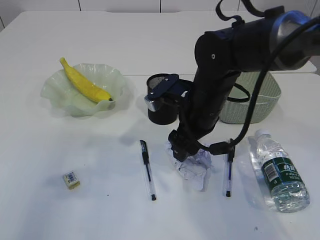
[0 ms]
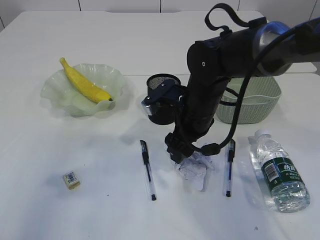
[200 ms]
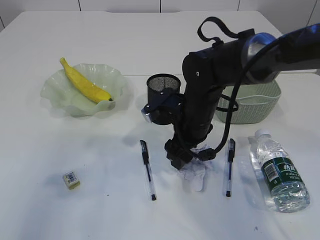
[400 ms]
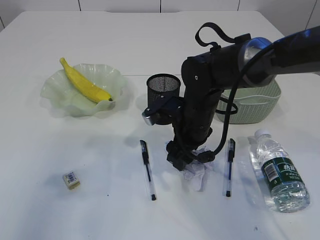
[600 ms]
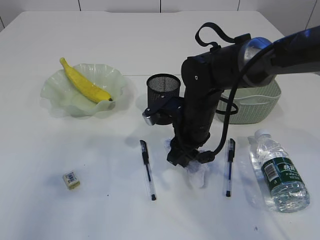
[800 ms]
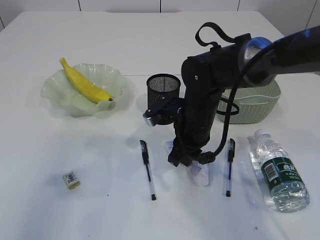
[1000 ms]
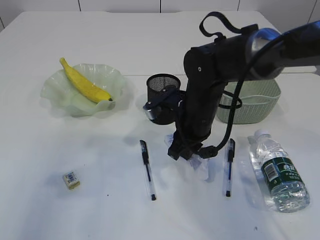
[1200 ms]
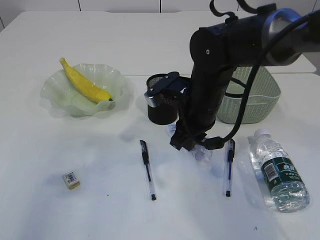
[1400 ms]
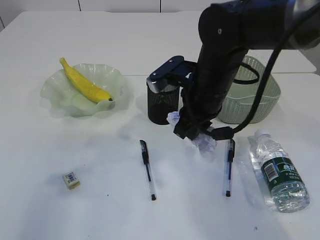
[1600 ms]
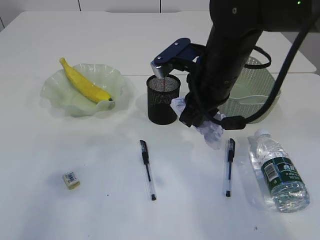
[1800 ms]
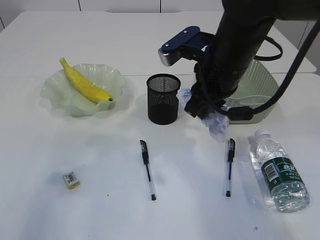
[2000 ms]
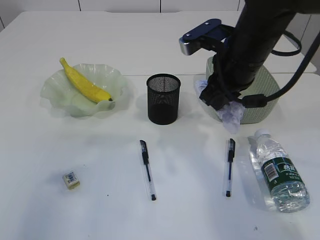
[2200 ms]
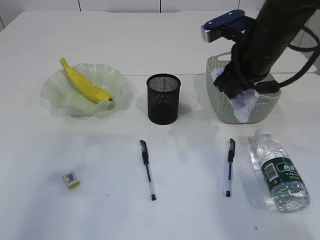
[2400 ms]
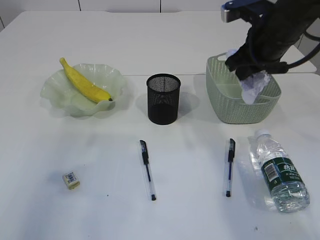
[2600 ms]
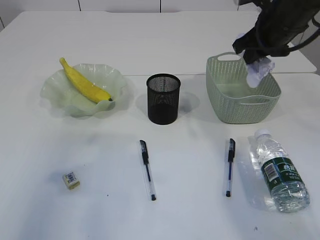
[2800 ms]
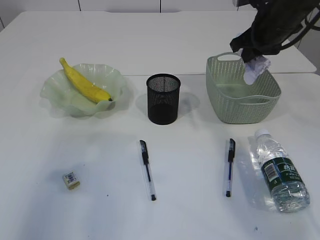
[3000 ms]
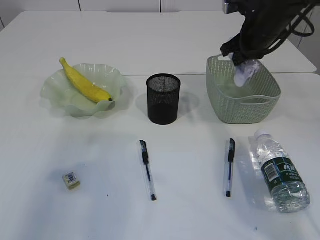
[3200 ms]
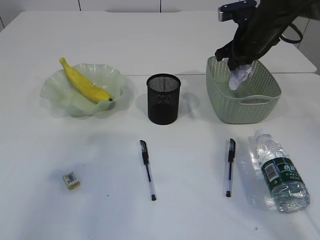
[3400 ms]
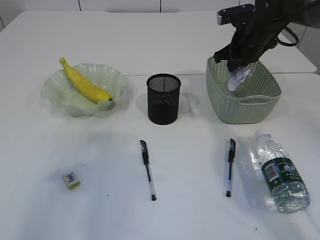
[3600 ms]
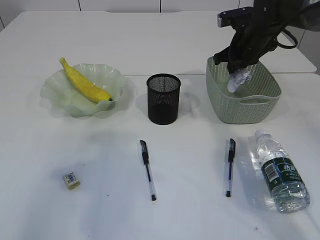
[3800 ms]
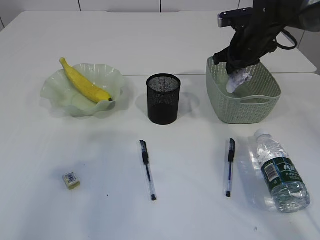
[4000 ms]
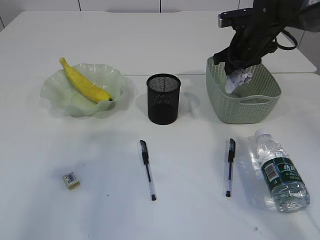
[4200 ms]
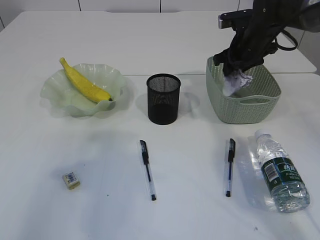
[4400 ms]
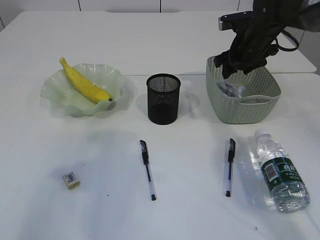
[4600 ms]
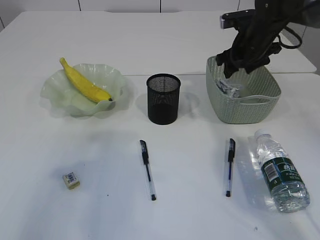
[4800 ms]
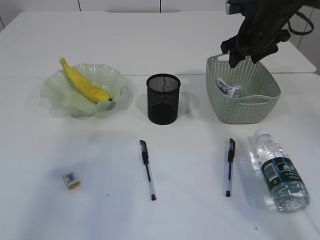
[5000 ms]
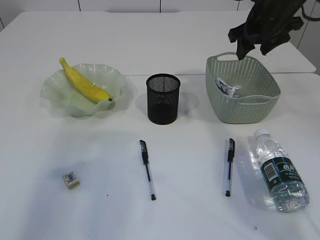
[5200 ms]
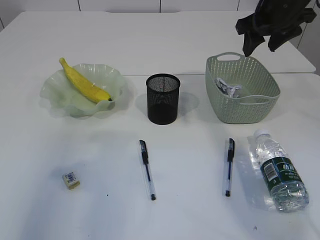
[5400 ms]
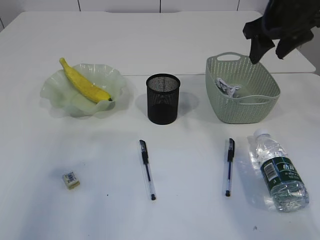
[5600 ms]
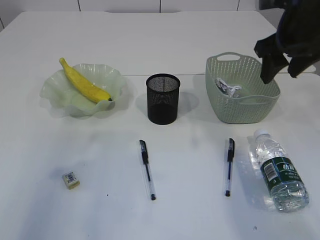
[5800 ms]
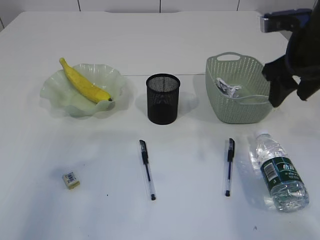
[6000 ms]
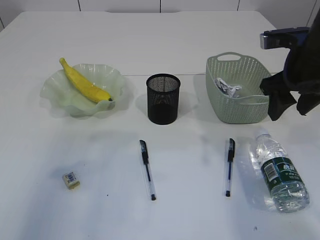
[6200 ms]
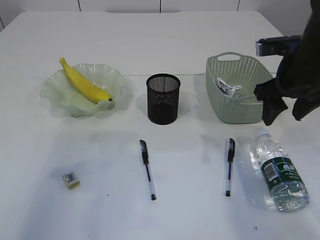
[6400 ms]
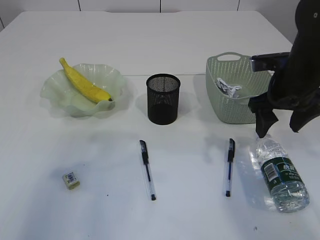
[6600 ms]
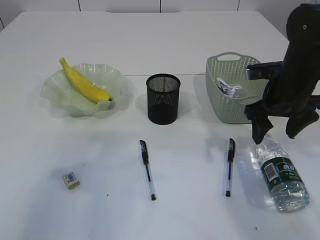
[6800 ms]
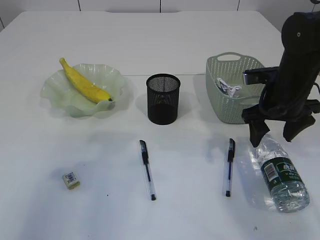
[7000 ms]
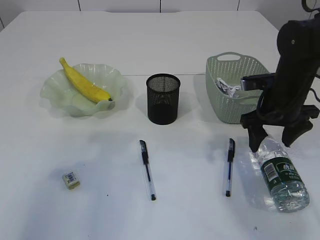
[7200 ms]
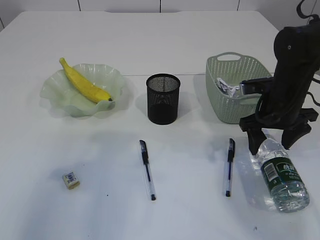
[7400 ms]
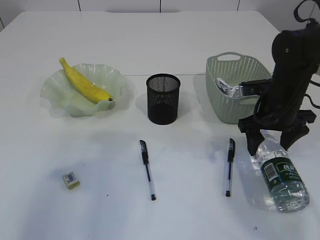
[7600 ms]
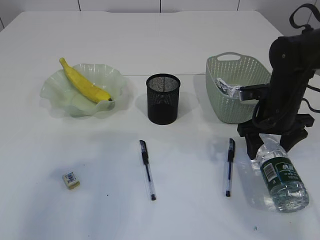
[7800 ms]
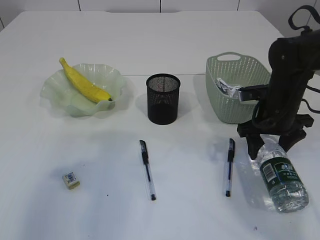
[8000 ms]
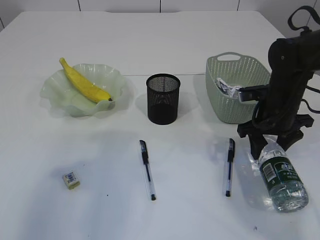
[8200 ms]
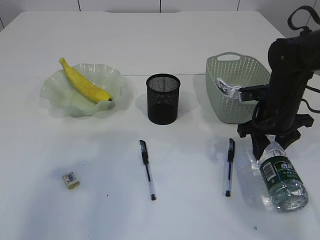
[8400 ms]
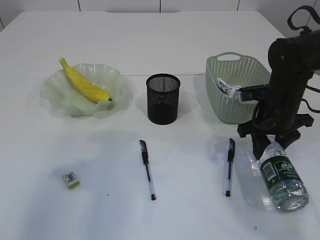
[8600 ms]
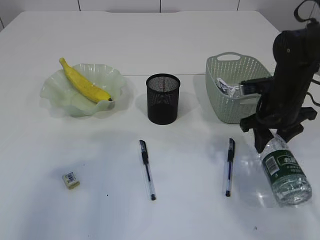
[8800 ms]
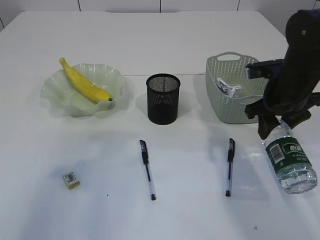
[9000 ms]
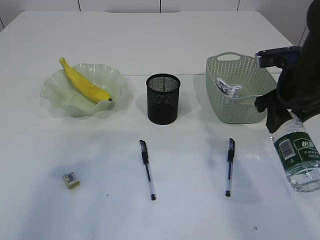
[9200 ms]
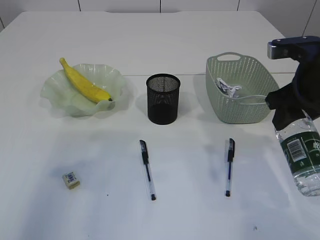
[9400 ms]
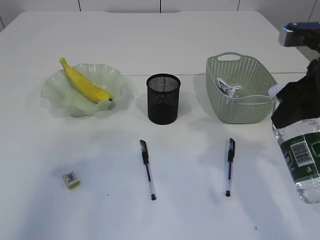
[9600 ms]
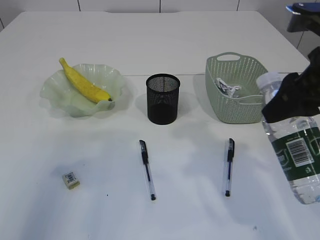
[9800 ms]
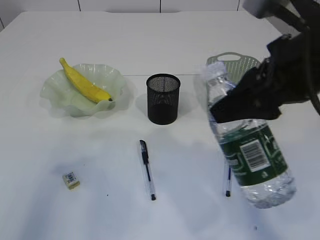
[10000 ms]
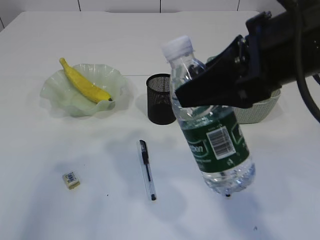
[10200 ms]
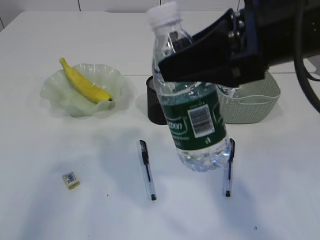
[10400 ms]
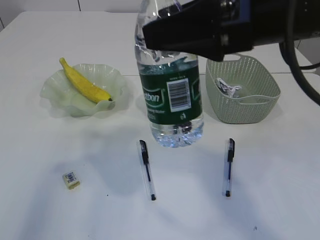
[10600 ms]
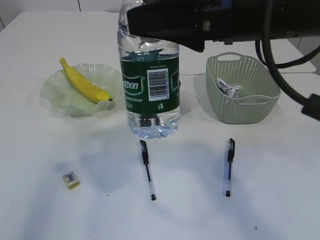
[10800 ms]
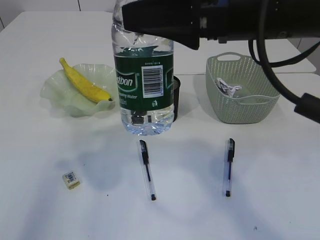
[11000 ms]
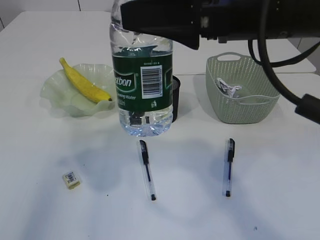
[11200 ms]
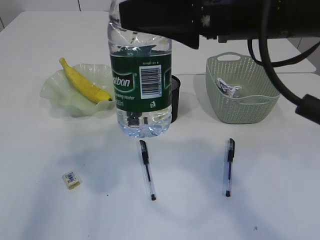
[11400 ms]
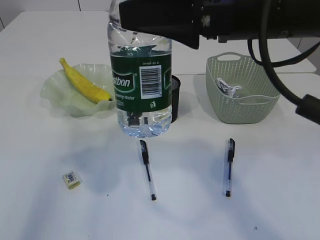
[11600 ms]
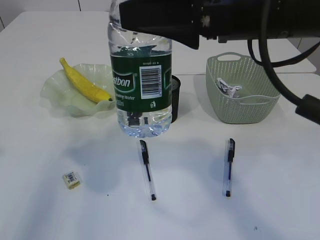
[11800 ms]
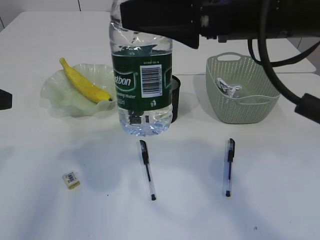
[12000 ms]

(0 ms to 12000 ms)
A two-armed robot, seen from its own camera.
Step, 1600 ms - 5400 ms: Place the waste paper in the basket.
Step, 5600 ms - 9400 ms: Pick up the bottle with the right arm.
0 ms - 1600 ms: The right gripper closes up.
1600 ms - 3000 ms: The right gripper moves to the right, forward and upward, roughly 20 cm.
3000 ms - 4400 ms: The right gripper is displaced downward and forward by approximately 10 cm, and opens up.
4400 ms - 6000 ms: The right gripper is displaced backward and upward by some 15 cm.
6000 ms - 7600 ms: The right gripper is displaced downward by about 15 cm.
7600 ms - 9000 ms: The right gripper closes.
9000 ms - 10400 ms: The right gripper shifts approximately 25 cm upward, backward and to the left.

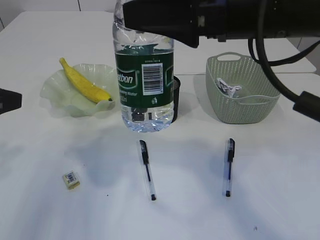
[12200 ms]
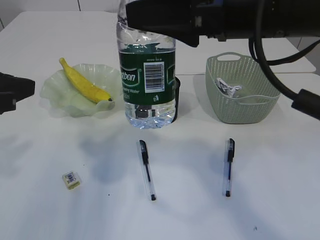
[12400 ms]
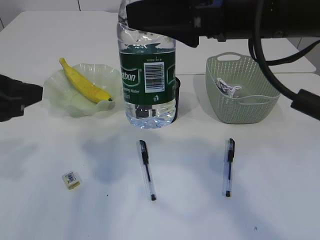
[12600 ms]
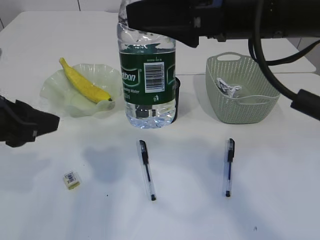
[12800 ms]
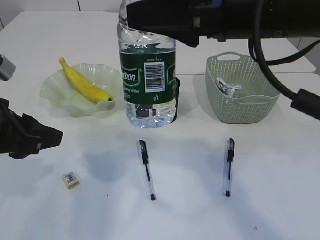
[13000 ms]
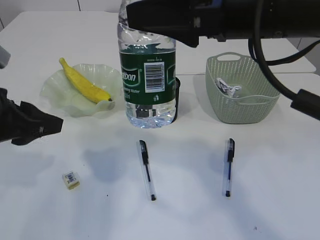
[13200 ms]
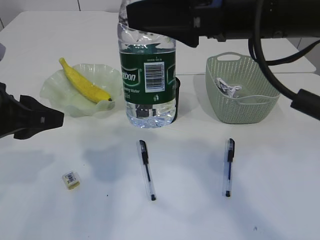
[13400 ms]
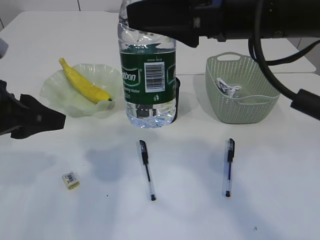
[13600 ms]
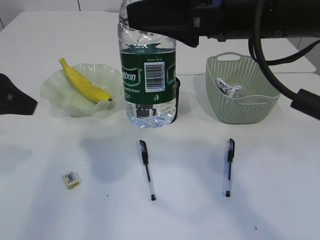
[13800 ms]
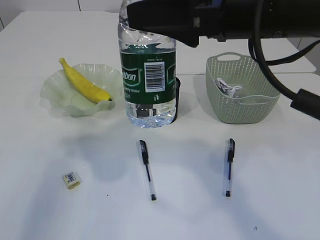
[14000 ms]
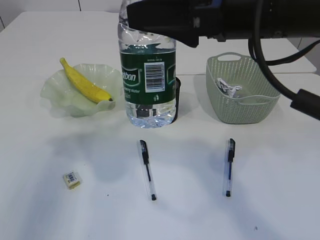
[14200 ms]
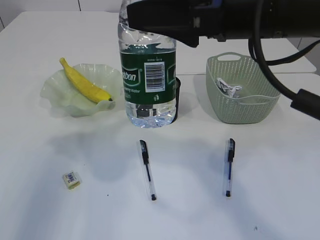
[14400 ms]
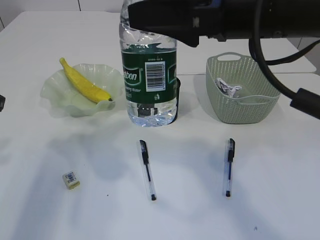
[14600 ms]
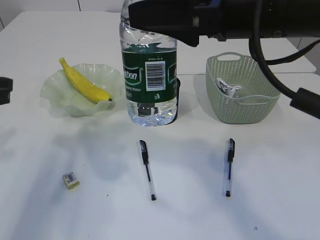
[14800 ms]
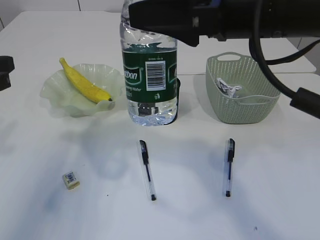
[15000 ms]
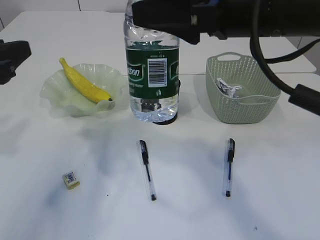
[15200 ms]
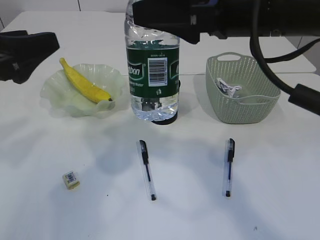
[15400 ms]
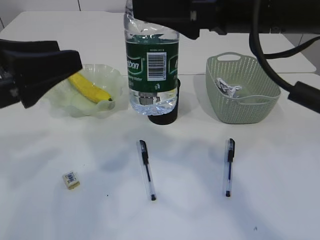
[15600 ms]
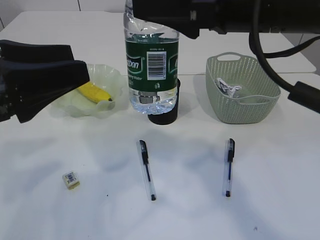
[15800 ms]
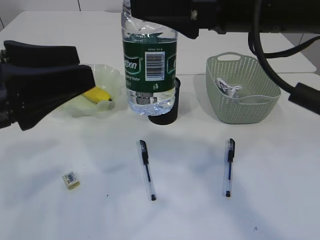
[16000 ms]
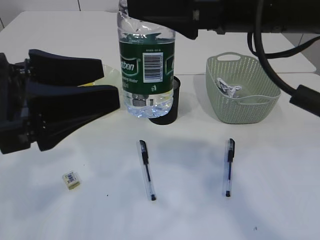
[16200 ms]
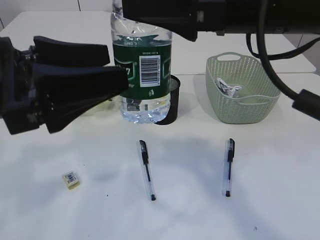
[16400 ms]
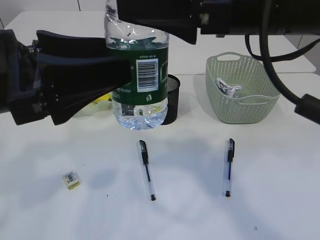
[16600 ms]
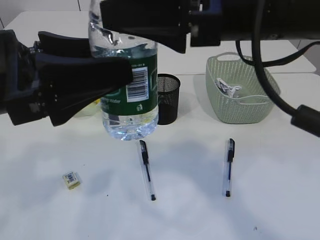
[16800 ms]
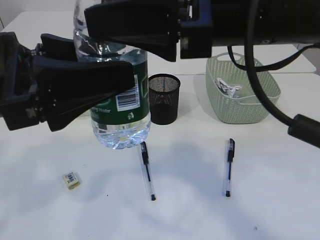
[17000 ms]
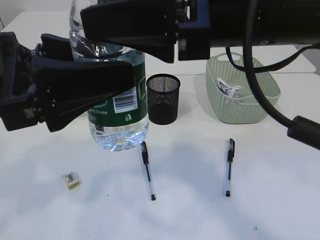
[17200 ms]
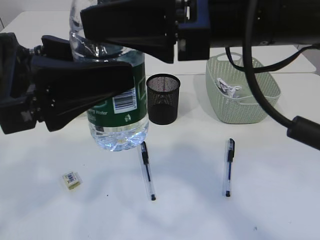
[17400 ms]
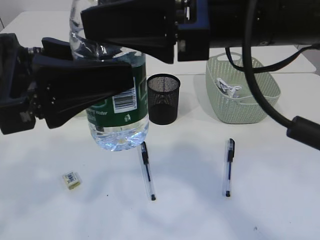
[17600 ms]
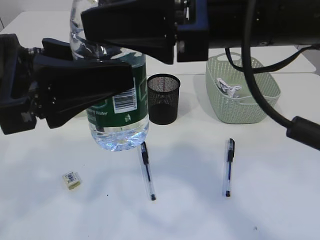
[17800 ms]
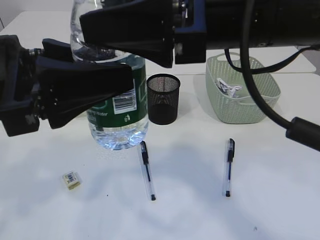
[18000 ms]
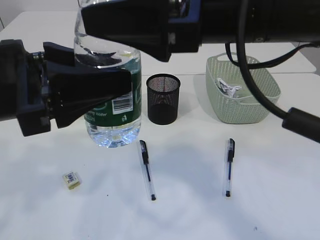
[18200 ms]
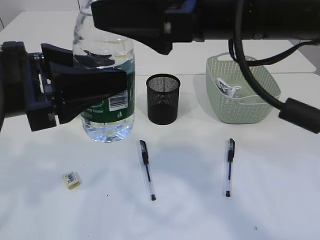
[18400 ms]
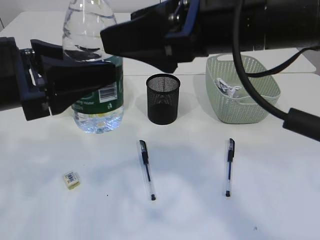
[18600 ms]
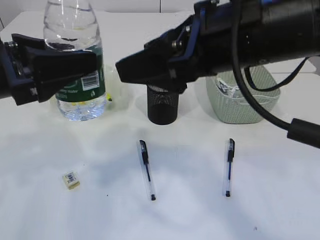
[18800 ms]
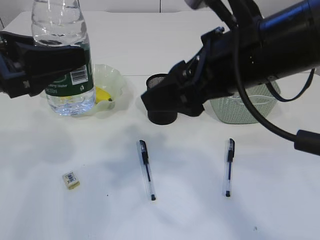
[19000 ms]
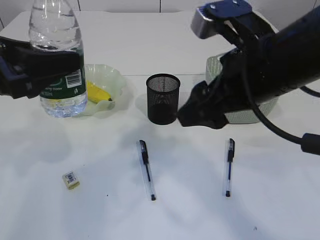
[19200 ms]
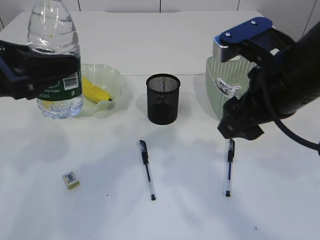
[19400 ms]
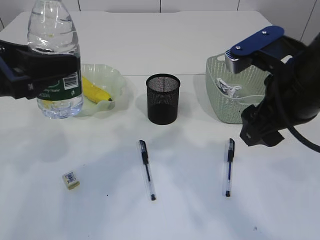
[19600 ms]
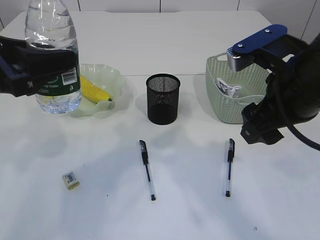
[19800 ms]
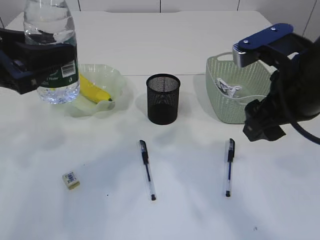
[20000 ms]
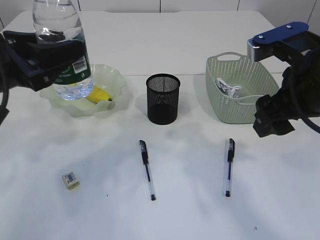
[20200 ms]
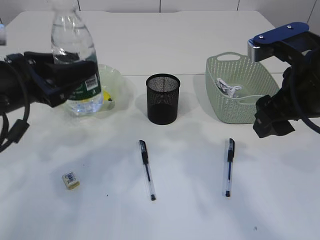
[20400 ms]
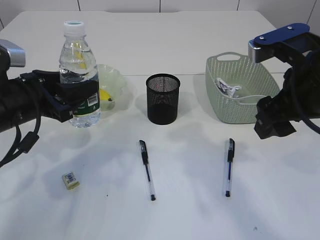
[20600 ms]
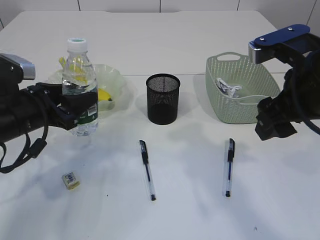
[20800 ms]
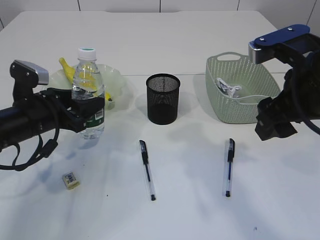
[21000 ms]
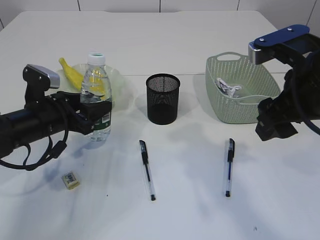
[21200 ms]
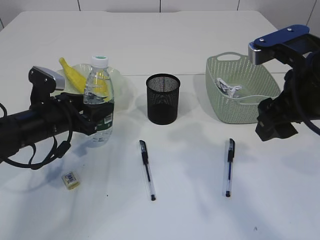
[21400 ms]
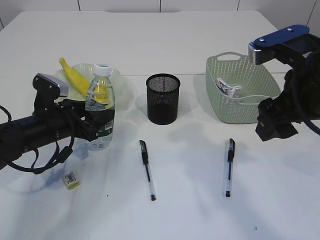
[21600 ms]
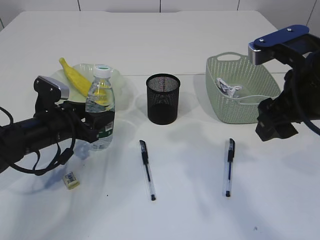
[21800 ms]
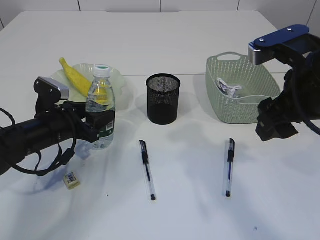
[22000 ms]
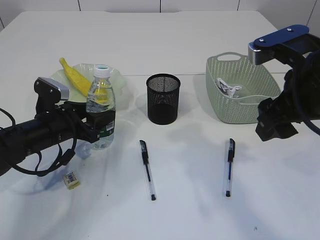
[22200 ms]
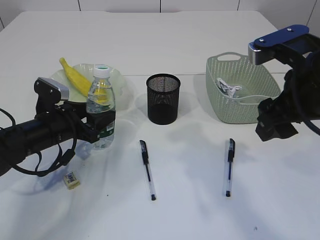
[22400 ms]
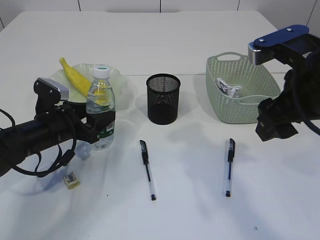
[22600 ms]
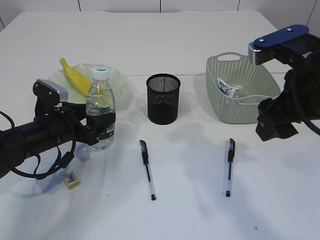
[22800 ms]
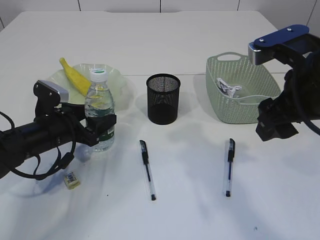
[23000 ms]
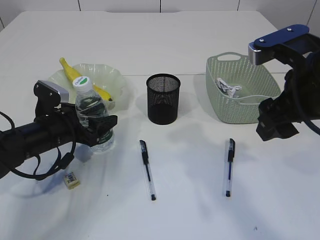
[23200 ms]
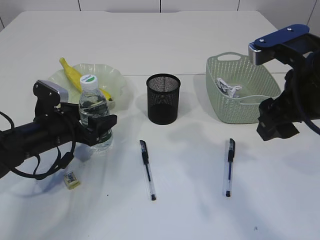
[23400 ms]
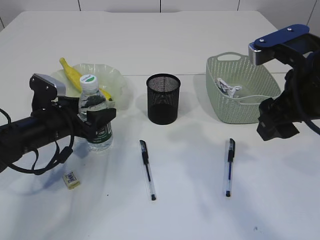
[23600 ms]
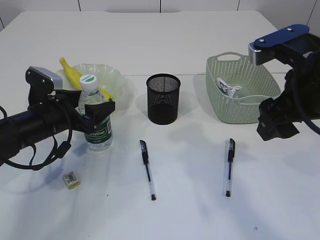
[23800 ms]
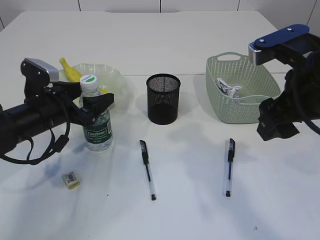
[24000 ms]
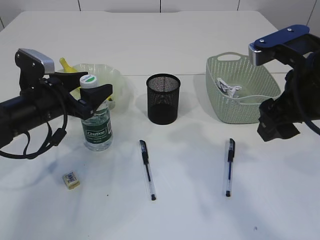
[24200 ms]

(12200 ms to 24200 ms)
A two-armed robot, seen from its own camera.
Step, 12200 ms - 18400 ms: transfer the bottle to the left arm.
12200 ms - 13800 ms: There are only small adjustments of the grippers.
15200 ms - 16600 ms: The left gripper shifts about 10 cm to the right and backward, and opens.
16600 ms - 18200 ms: The left gripper closes its fingers.
18200 ms - 19800 ms: The left gripper shifts approximately 5 cm to the left, while the right gripper is displaced to the right and downward by roughly 10 cm.
19800 ms - 21200 ms: The left gripper shifts approximately 20 cm downward and forward.
21200 ms - 22600 ms: There are only small adjustments of the grippers.
22600 ms - 24200 ms: The left gripper goes about 5 cm upward.
